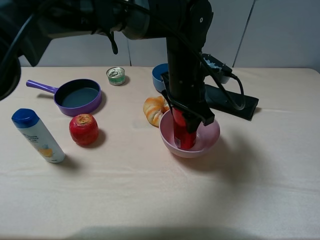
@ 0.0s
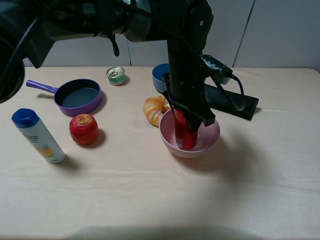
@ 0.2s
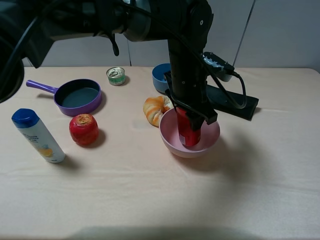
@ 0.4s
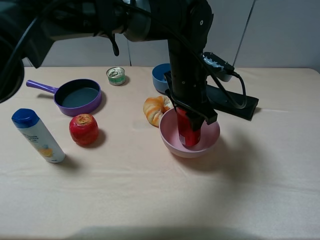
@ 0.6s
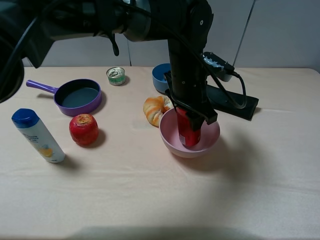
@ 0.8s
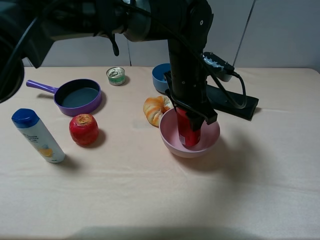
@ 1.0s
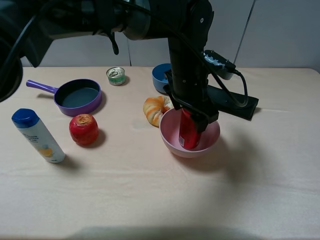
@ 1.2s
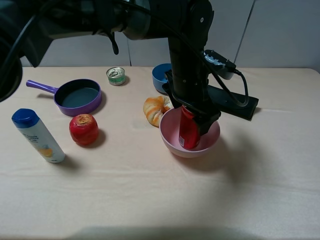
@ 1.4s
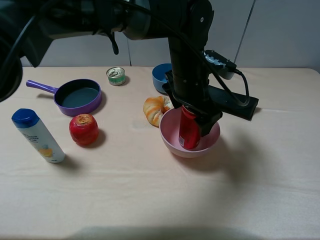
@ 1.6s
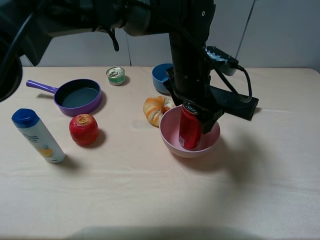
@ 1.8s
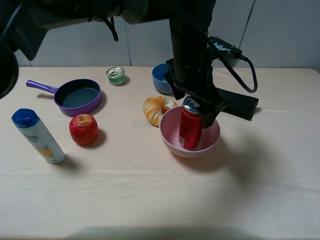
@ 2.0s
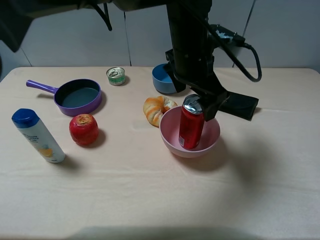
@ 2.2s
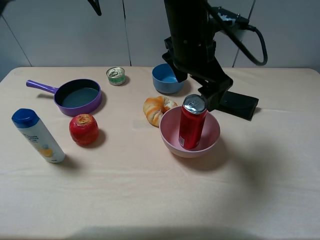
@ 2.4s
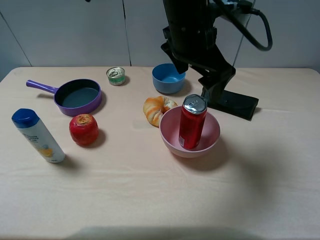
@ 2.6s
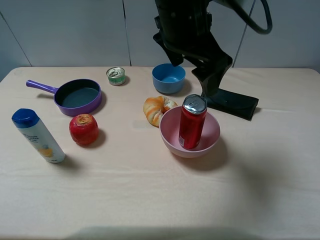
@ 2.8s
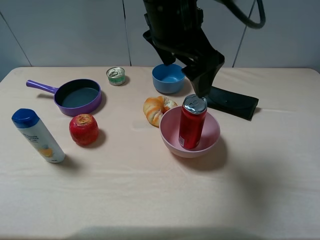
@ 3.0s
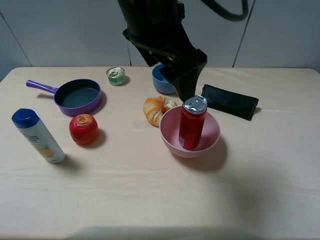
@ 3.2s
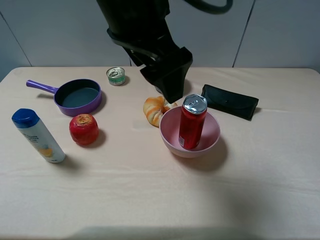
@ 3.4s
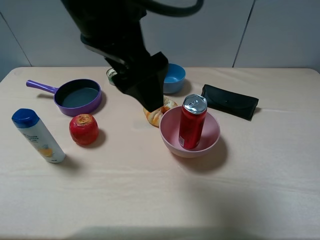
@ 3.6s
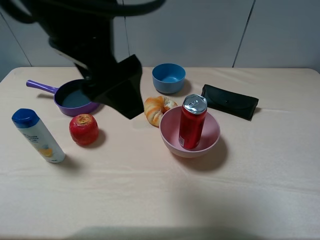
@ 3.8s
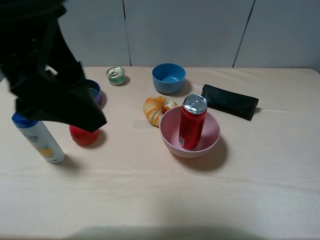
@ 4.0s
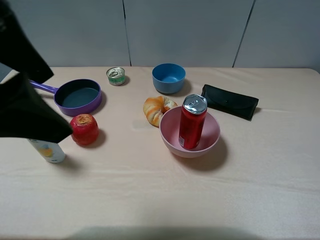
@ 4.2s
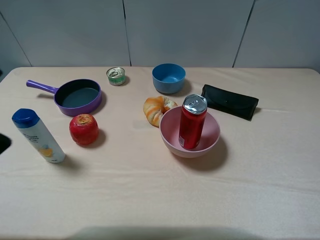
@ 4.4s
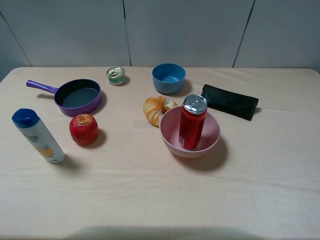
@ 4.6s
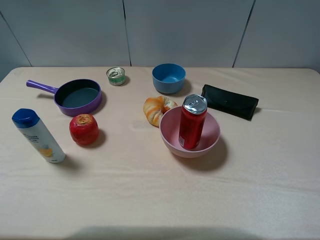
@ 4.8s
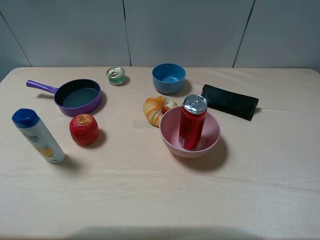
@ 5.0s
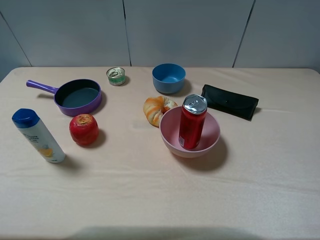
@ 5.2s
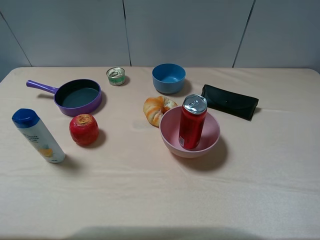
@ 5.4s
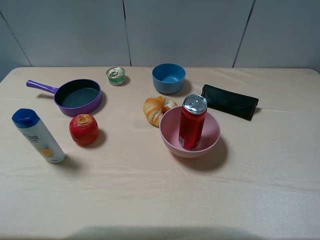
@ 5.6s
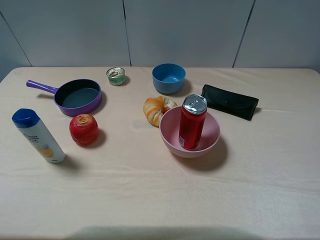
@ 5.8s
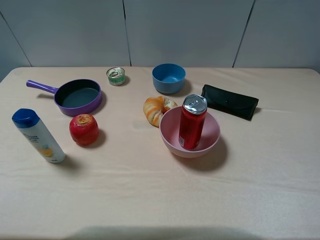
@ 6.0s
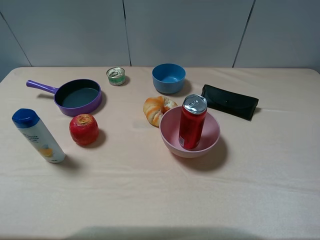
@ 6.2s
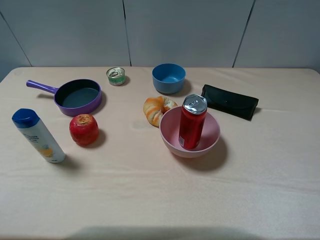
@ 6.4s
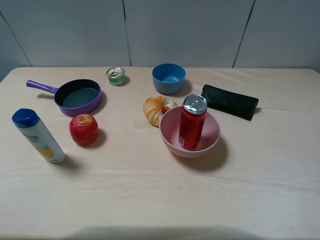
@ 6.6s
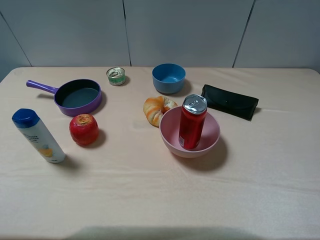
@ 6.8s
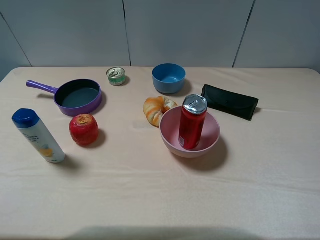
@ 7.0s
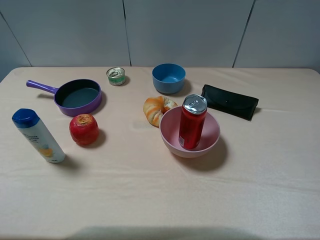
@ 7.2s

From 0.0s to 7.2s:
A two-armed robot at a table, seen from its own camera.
Task of the whole recording: pick up an item with a gripper and place it in a random container on the table.
Step, from 0.0s to 2.6s: Place the coke into the pink pot with the left gripper.
From 0.0s to 1.4s: The left gripper opens.
From 1.4s to 2.8s: The left gripper goes approximately 10 cm upward.
From 2.8s to 4.4s: The left gripper goes roughly 30 cm to the left and backward.
